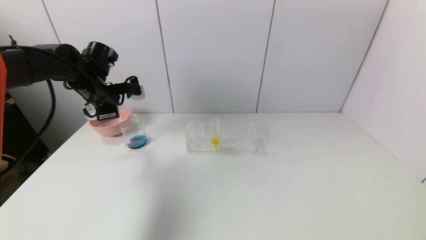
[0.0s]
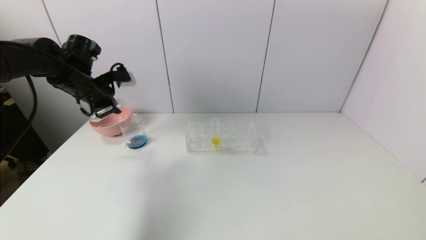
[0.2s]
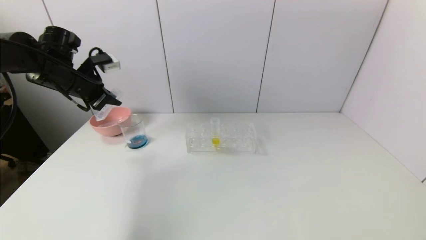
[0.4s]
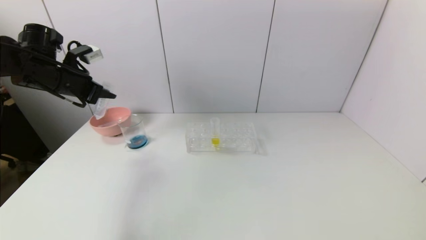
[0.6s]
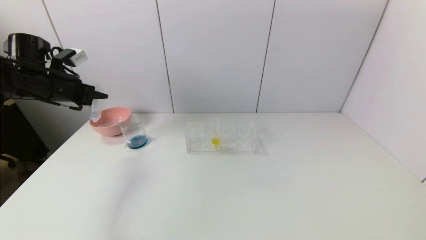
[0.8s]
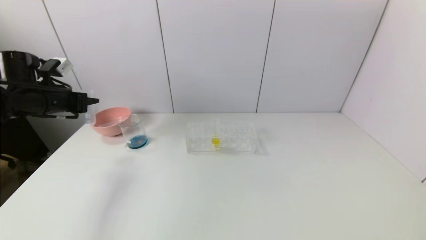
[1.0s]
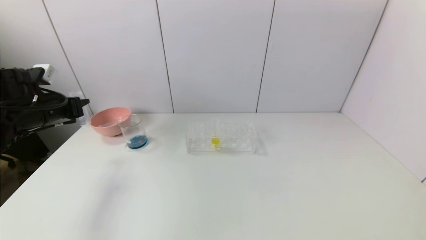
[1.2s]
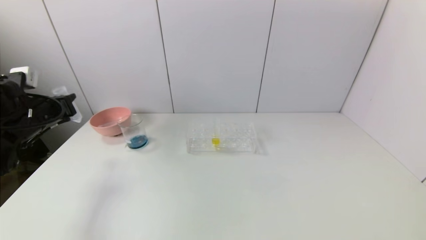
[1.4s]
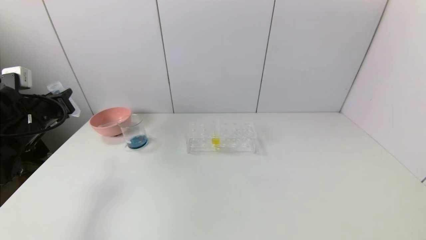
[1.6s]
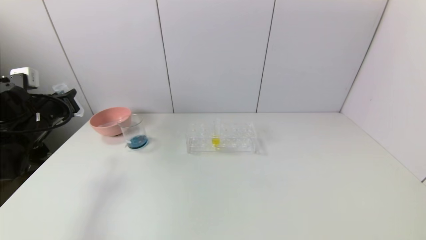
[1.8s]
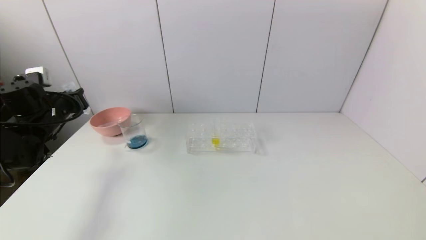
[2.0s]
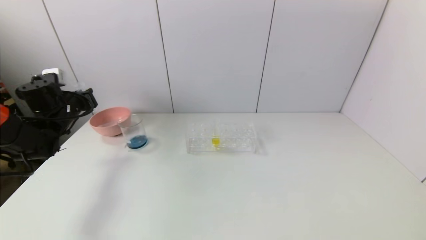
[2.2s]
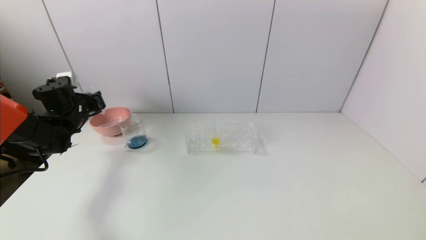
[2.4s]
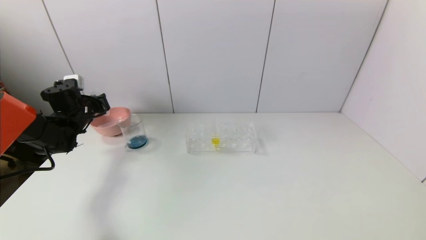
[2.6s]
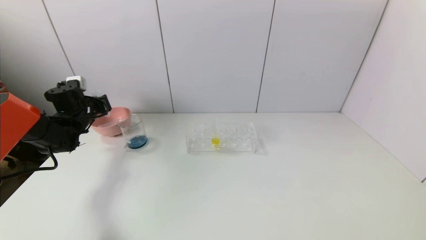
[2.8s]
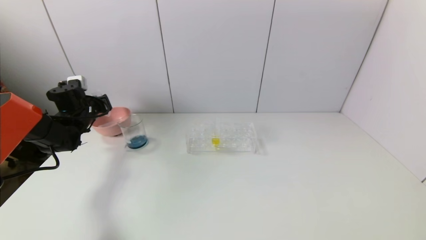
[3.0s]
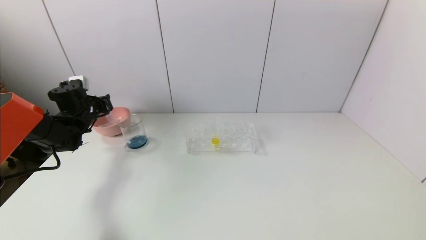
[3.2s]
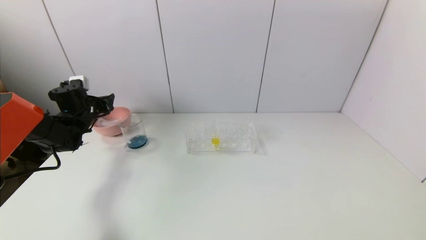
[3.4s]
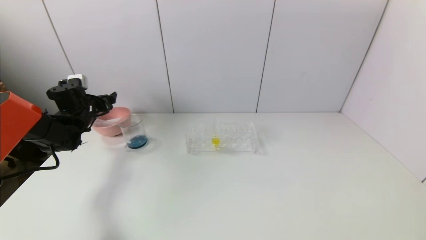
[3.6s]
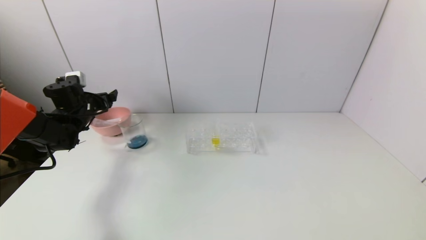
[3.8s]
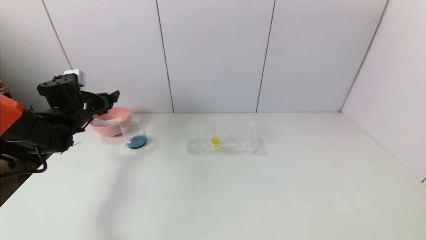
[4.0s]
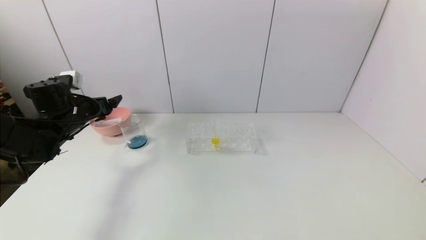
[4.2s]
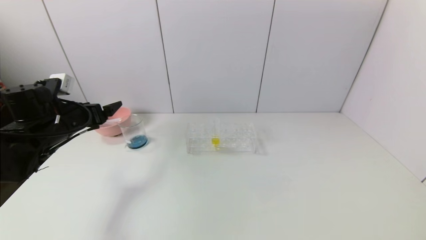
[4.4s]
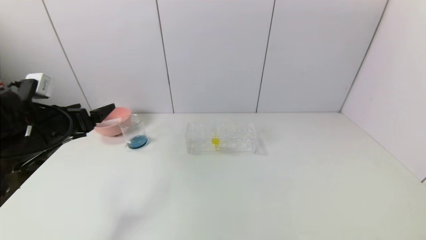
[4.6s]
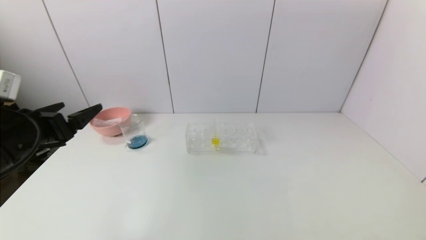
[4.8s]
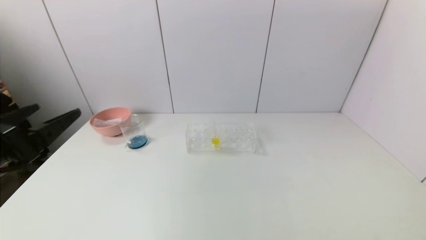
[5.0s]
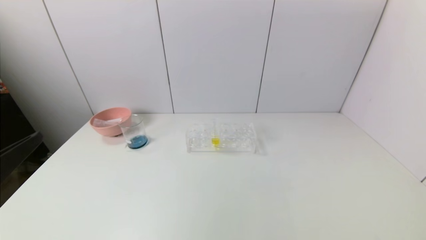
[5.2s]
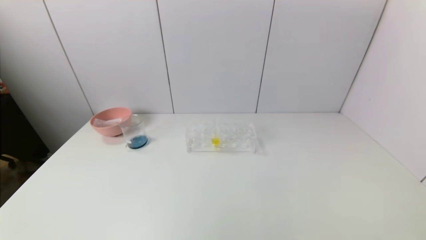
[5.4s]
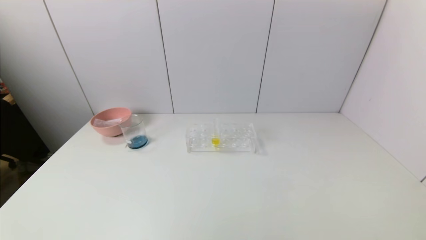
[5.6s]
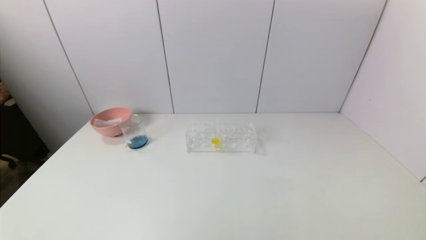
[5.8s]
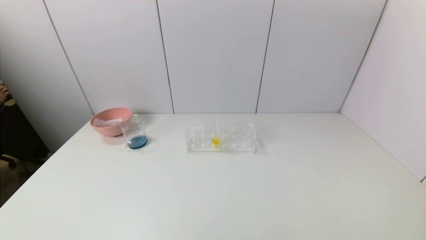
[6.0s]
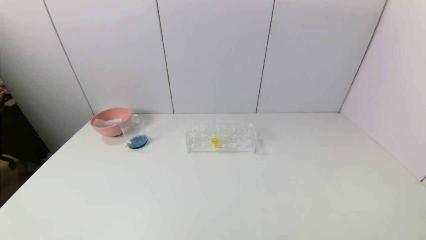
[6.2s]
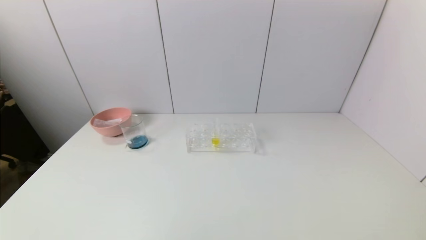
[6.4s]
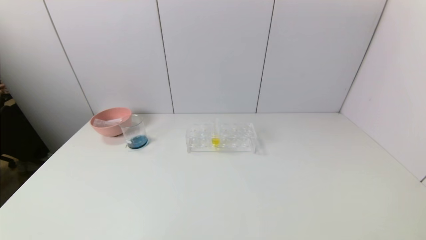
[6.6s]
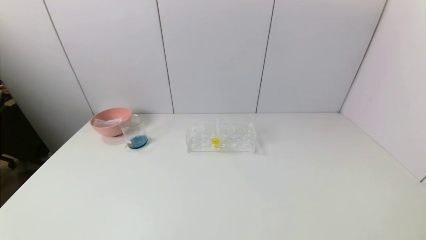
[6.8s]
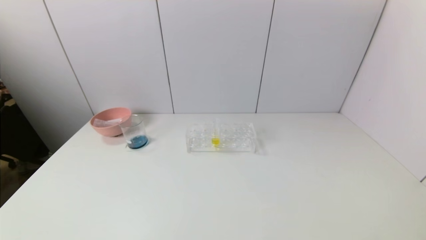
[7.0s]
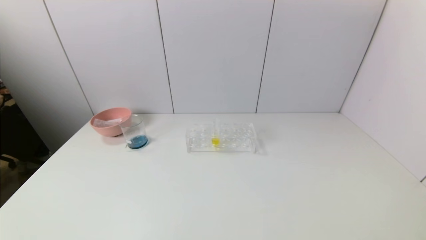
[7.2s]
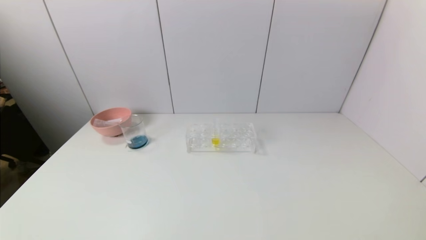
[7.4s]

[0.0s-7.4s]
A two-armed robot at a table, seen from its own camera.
Task of the whole recording: pick up the test tube with red pigment and the test tube with blue pigment by grippers and pour them into the container.
Step, 0.0s to 3.2s: Place the test tube into the bowl with the left gripper.
0.0s to 1.4s: The left gripper is displaced to the left and backward by roughly 15 cm.
1.4s to 3.0s: The left gripper travels forward and downward by about 15 cm.
3.0s to 4.4s: The left gripper is displaced backward by some 15 cm, and opens.
4.4s to 6.0s: The left gripper goes approximately 35 cm backward.
